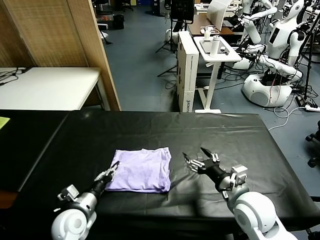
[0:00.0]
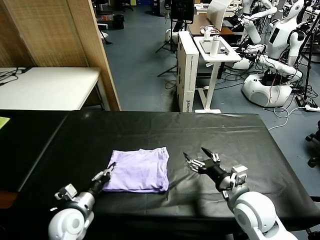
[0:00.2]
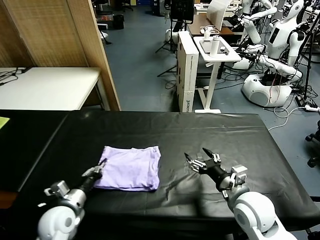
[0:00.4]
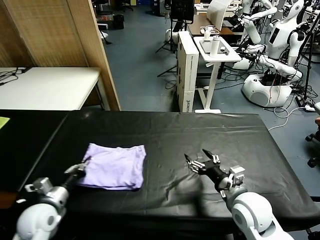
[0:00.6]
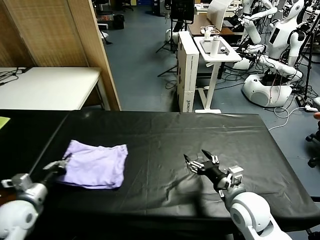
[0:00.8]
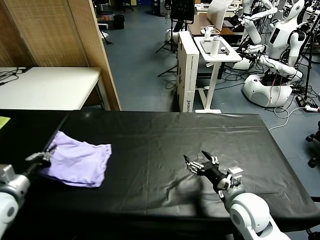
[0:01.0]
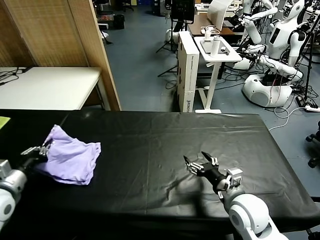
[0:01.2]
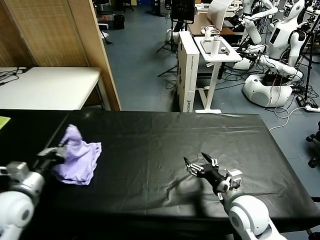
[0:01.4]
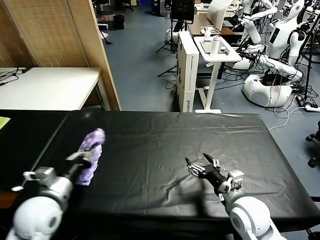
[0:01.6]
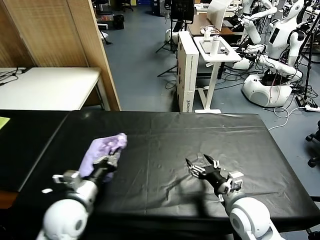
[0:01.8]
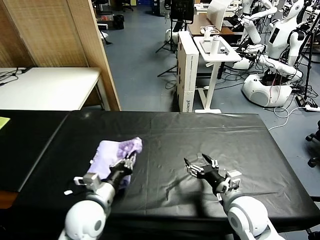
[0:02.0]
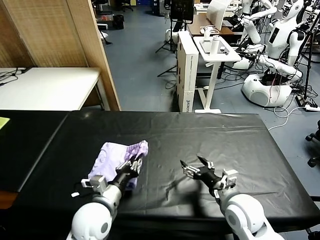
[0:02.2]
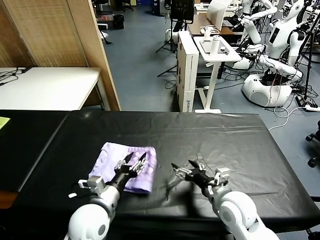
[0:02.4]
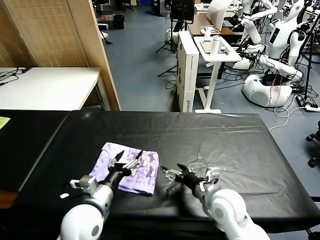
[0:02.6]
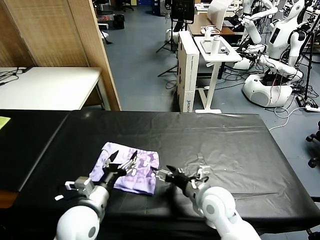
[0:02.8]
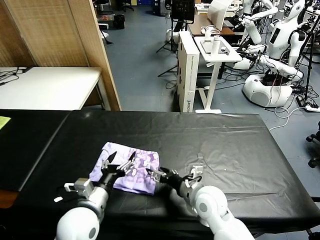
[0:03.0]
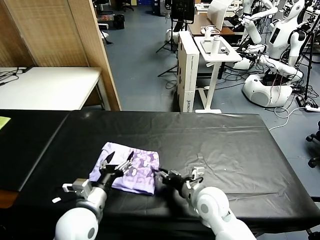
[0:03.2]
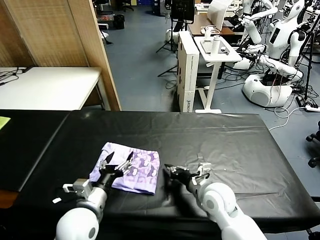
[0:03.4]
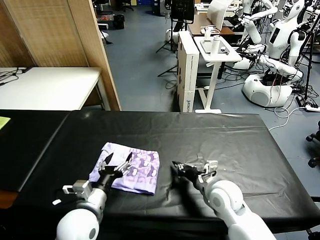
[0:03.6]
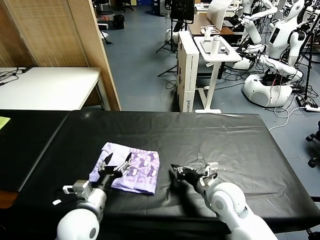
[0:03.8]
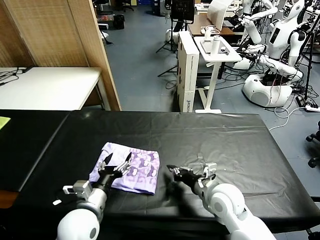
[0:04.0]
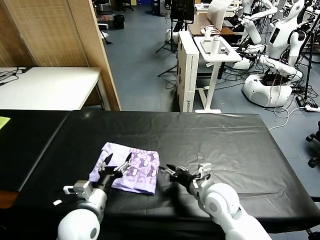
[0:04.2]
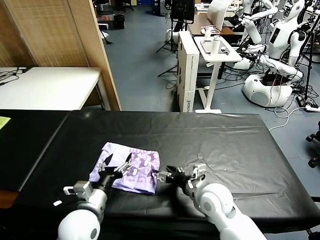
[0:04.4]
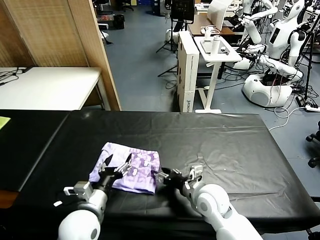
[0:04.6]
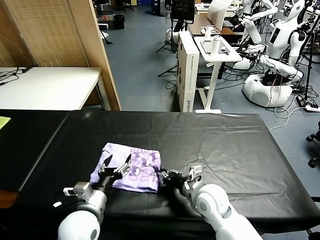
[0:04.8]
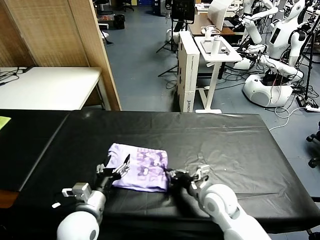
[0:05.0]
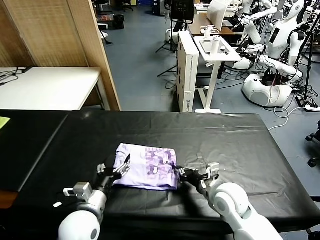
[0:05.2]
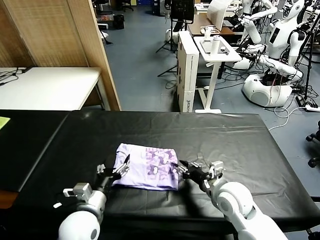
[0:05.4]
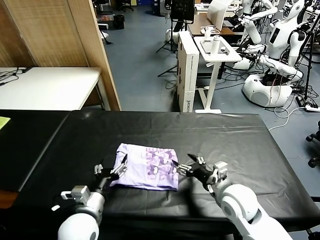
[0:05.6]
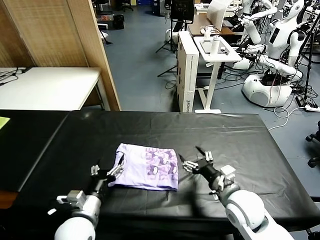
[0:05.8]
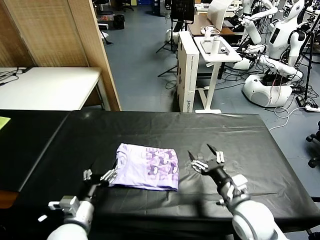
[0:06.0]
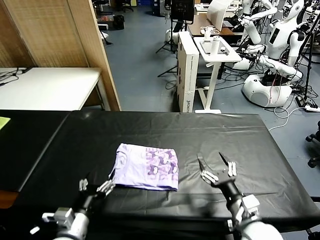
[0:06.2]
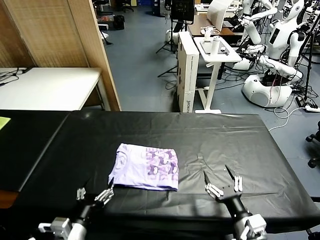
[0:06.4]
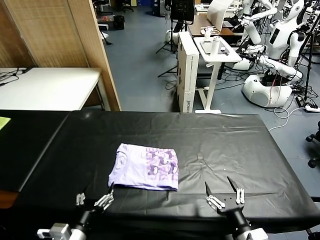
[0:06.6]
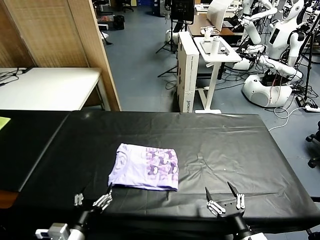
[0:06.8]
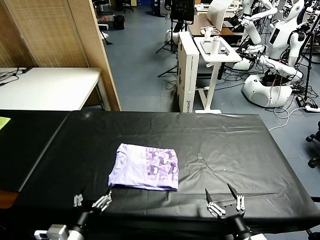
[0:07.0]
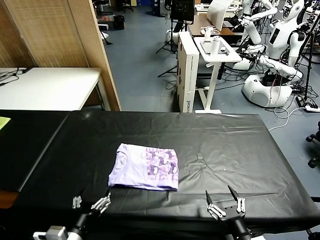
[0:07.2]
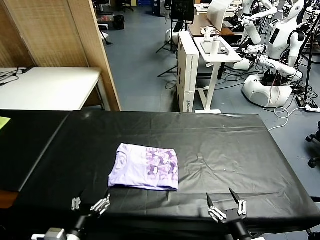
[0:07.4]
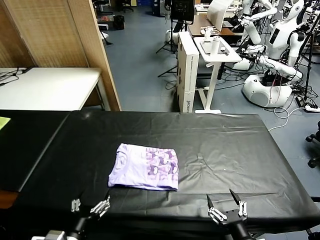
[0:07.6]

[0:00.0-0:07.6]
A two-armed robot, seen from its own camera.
Task of the whole recording: fold and organize the clothes.
Step, 0.0 to 2.4 s: Flip the folded clothes over with left gripper.
Step, 2.6 to 5.6 s: Drag the clothes to the center of the table.
0.0 to 1.6 s: The left gripper is displaced upward by about 15 cm, reaches approximately 15 cm to the left, then returns, and closes its fingers.
1.6 to 3.0 s: The right gripper is displaced to the left by roughly 10 cm; the left gripper heads to the right, covering some 10 cm, and opens up.
3.0 to 4.6 s: The right gripper closes, then opens again.
4.6 to 6.0 s: The right gripper shifts roughly 10 cm to the right and backward, and closes, then reopens.
6.0 to 7.6 s: The left gripper goes approximately 10 cm backward; the right gripper goes about 15 cm backward.

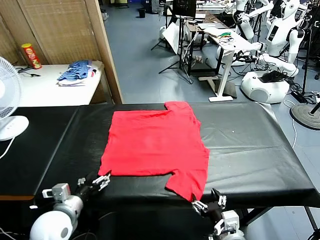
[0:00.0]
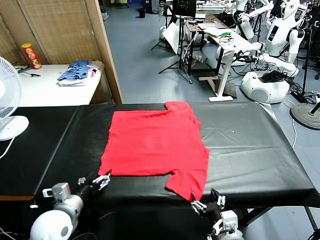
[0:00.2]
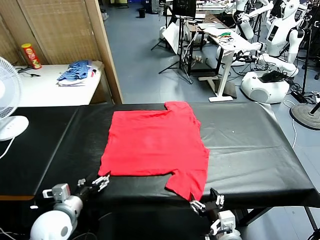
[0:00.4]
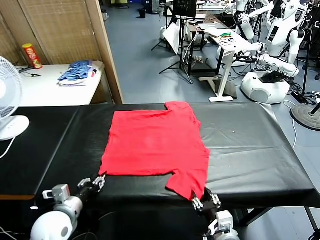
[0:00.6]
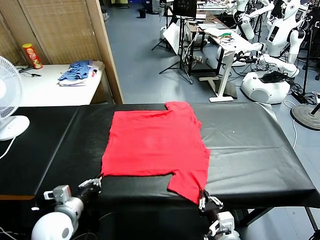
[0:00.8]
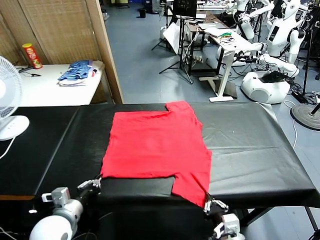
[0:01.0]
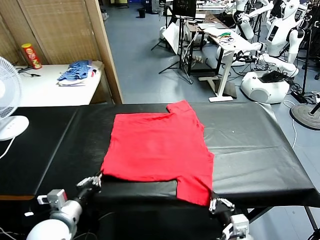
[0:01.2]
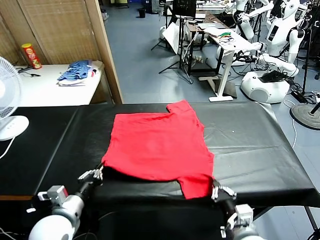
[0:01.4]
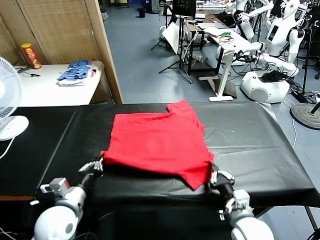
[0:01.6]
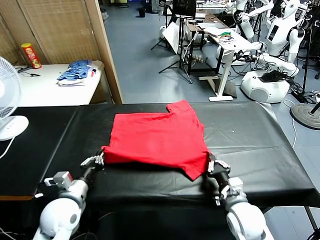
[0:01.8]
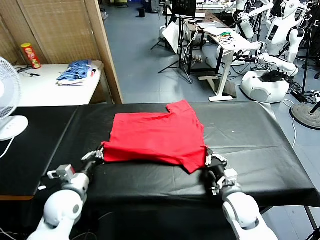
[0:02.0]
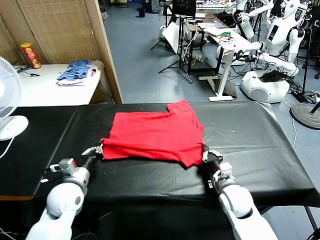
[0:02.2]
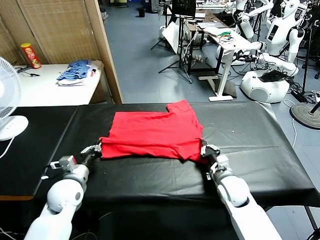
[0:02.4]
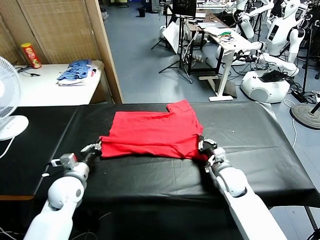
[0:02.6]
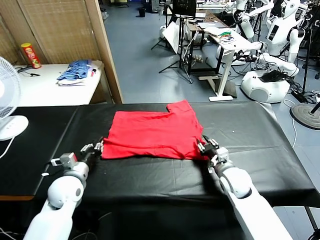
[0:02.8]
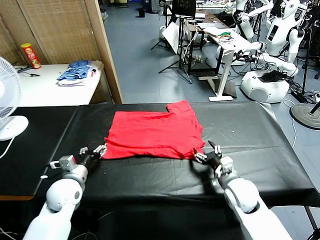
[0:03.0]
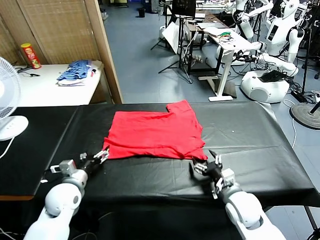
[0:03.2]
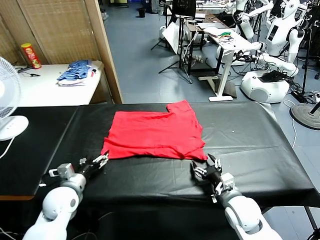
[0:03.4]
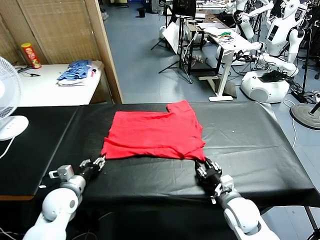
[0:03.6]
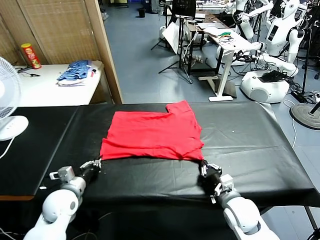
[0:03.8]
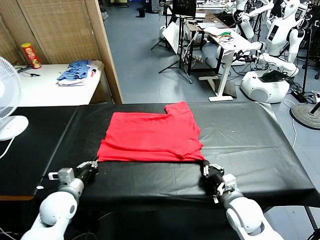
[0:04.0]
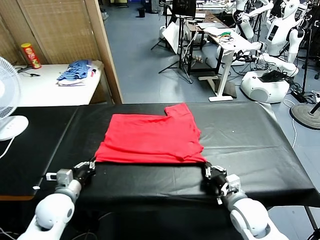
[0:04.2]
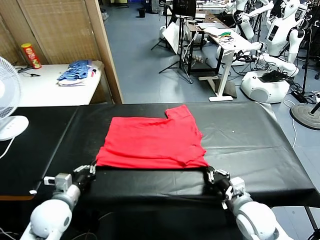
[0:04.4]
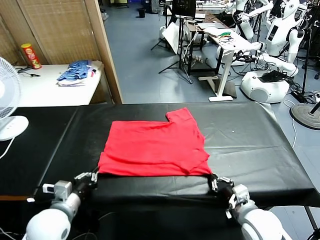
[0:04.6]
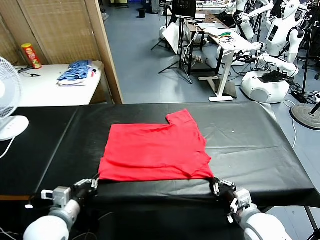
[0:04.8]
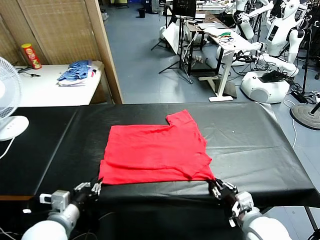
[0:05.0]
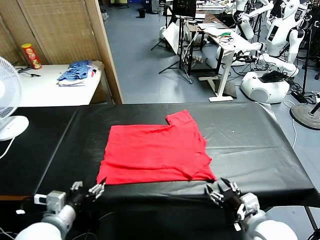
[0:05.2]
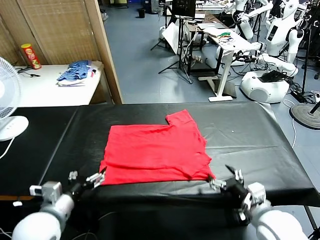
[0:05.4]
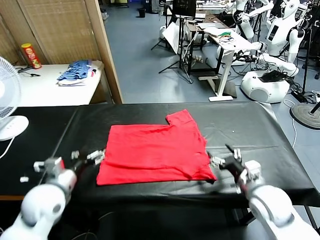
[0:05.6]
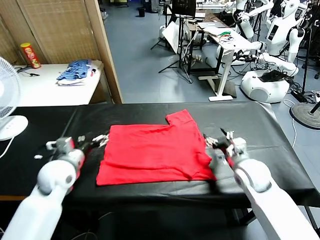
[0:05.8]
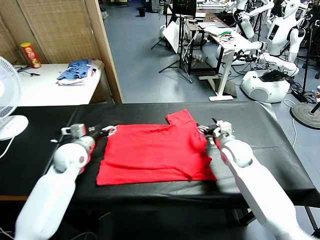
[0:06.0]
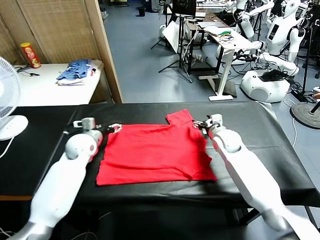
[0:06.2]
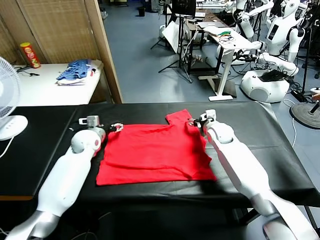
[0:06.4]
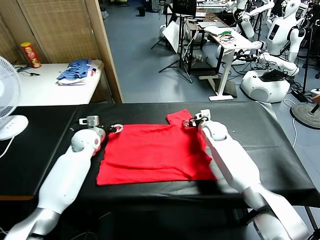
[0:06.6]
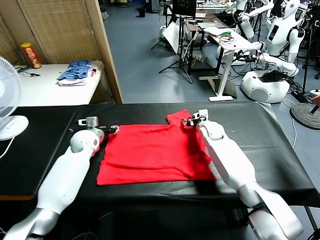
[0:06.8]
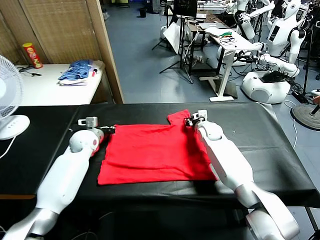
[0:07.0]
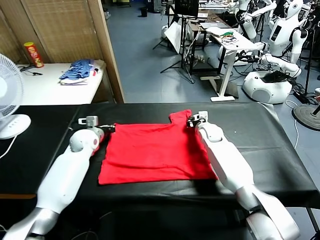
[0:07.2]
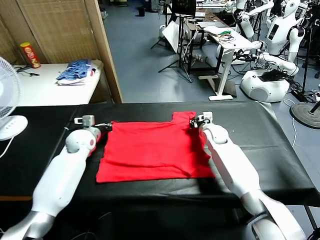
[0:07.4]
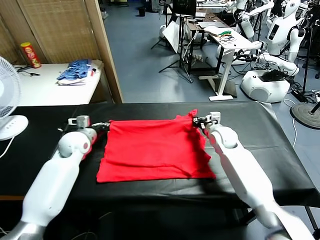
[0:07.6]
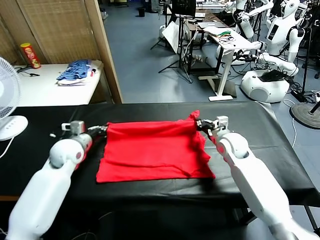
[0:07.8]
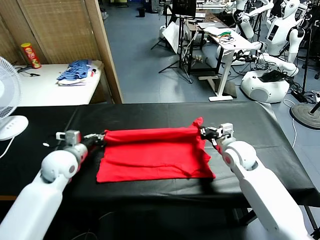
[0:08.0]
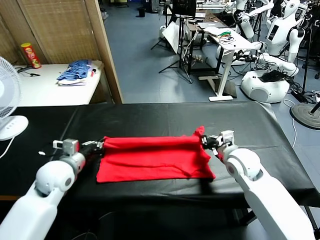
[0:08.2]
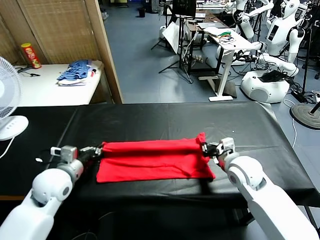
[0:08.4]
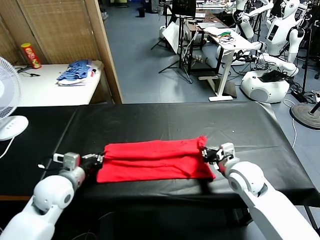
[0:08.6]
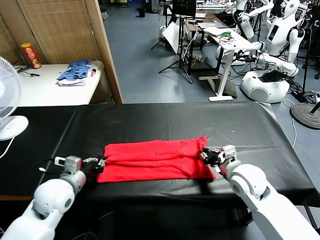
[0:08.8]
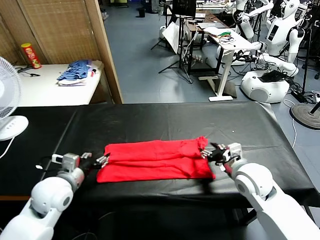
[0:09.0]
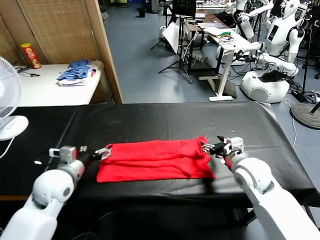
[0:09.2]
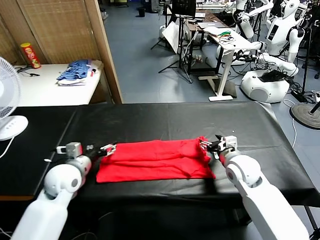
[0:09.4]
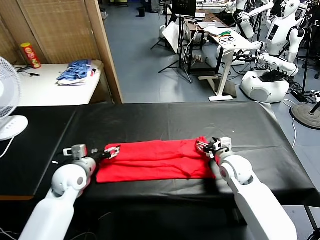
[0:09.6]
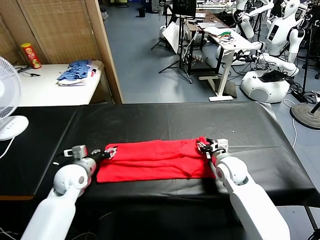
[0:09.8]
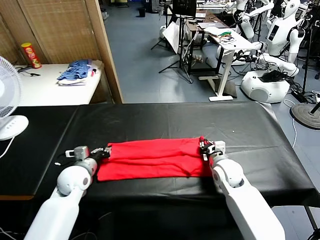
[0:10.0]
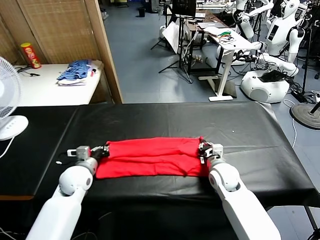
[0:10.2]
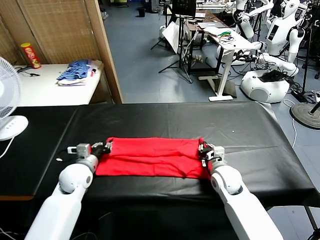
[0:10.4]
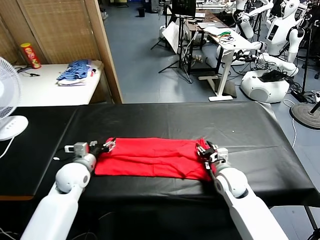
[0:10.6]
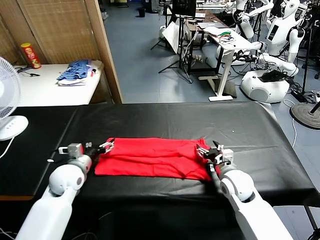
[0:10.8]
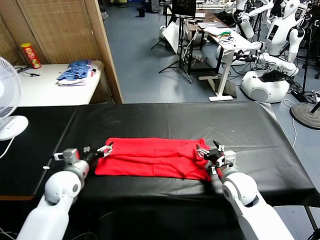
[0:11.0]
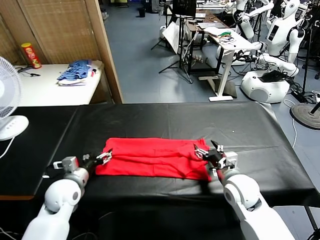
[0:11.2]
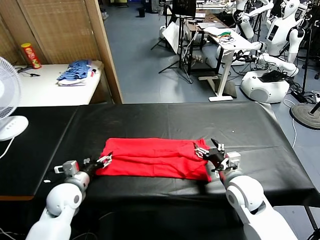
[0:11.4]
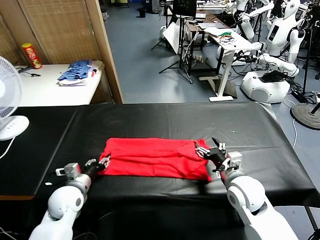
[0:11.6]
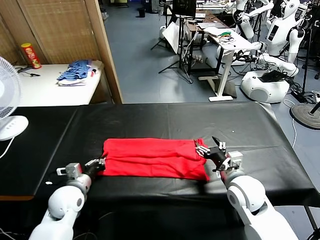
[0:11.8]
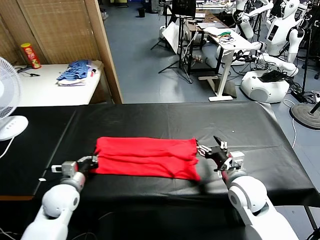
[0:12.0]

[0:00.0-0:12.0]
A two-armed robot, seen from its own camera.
Task of the whole recording: fold and organize the clothes.
Step, 0.0 to 1.0 s: use both grippers simultaneously to clamp the lower edge of the clothing fabric.
Step, 1.2 to 3.0 s: use both grippers to drag the lower edge of the fabric forward and fold it over the upper edge.
Step, 3.2 to 5.0 s: Drag the clothes downward with both gripper.
Step, 5.2 to 7.2 s: use both grippers simultaneously to clamp the upper edge of the clothing fabric.
Step, 7.4 to 9.0 s: use both grippers to drag the upper edge of the fabric backward and fold it over the lower edge.
Step, 9.2 to 11.8 s: use the left gripper to clamp the left edge of the fabric.
1.6 to 3.0 s: The right gripper goes forward and returns, approximately 10 cm each way, and opens; the left gripper is displaced forward by about 10 cm, and opens.
3.0 to 4.4 s: Both grippers move backward, some 5 cm. The left gripper closes its fingers, while the right gripper closes its fingers.
4.4 to 6.0 s: Both grippers travel together forward, roughly 25 cm. The left gripper opens its fingers, while the right gripper opens up.
6.0 to 7.6 s: The right gripper travels forward and back again, some 5 cm each way, and closes its fingers. Meanwhile the left gripper closes.
7.6 to 9.0 s: Both grippers move backward, roughly 15 cm. The left gripper opens up. Meanwhile the right gripper opens its fingers.
9.0 to 10.4 s: The right gripper goes some 10 cm downward, and closes. Meanwhile the left gripper shifts about 10 cm forward and downward, and closes its fingers.
10.4 to 12.0 s: The right gripper travels upward and backward by roughly 10 cm, and opens, while the left gripper moves backward, some 5 cm, and closes its fingers.

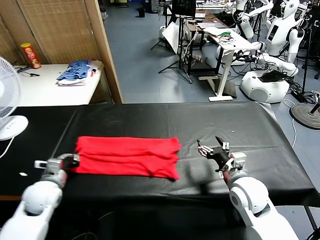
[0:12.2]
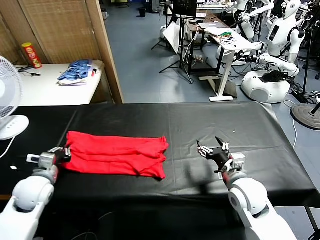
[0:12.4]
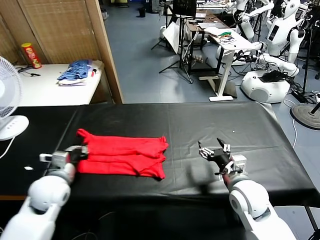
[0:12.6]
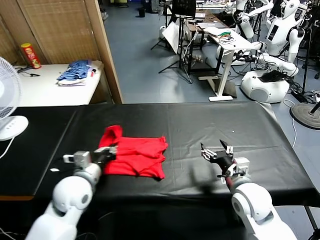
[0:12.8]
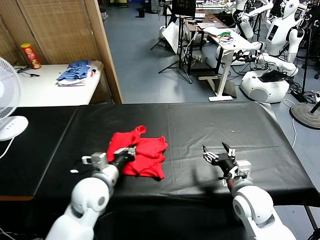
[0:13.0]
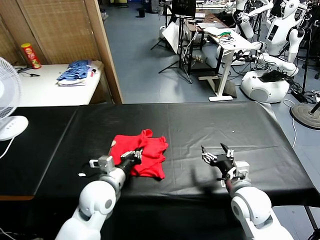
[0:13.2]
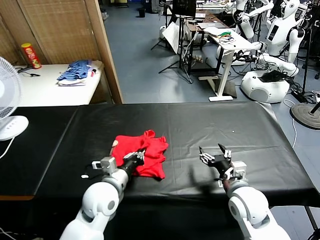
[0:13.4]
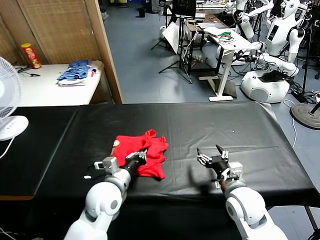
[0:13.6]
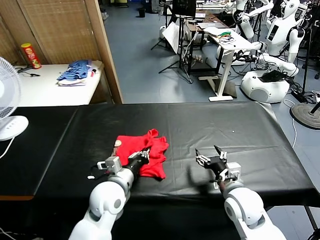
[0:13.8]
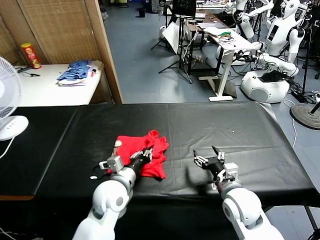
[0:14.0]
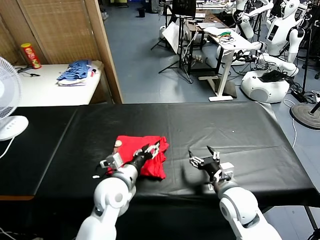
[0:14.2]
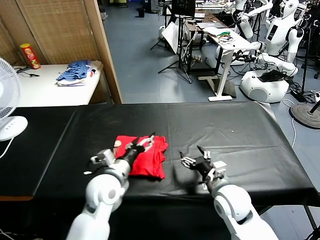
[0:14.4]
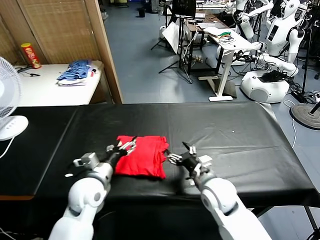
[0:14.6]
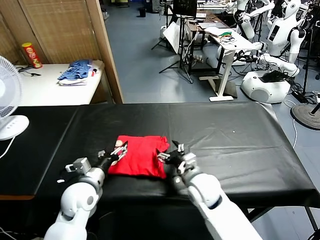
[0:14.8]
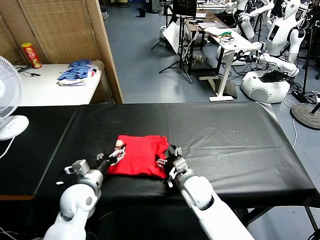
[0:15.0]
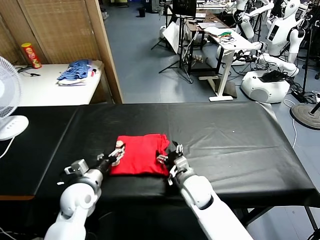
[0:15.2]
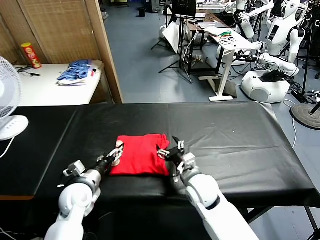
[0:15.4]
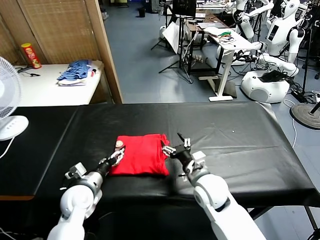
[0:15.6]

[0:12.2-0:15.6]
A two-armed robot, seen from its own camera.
Task of the whole recording: fold and organize the clothes.
Step, 12.2 to 14.2 s: use the left gripper to drag the left edge of the fabric to the left and folds it over the right edge.
12.2 to 13.8 s: The left gripper shifts about 20 cm to the right.
13.8 to 15.6 s: The right gripper heads to the left, covering roughly 10 cm. Meanwhile the left gripper shifts about 15 cm to the left and downward, and opens its fingers.
